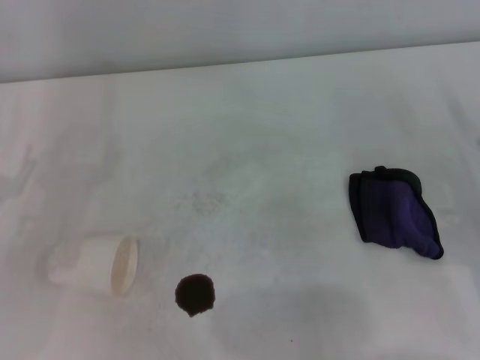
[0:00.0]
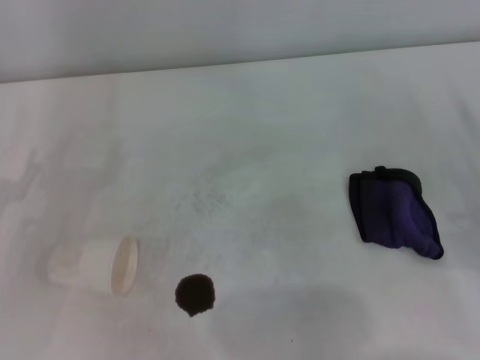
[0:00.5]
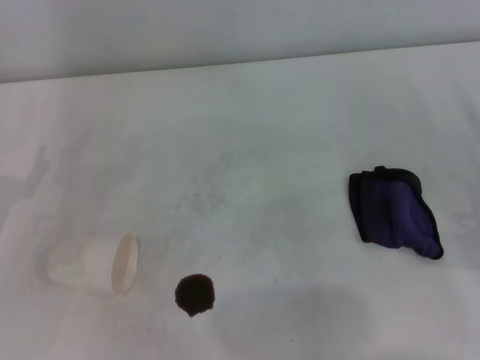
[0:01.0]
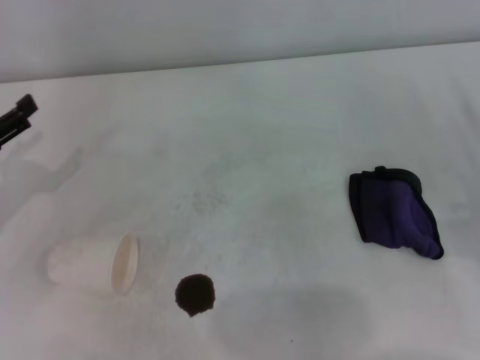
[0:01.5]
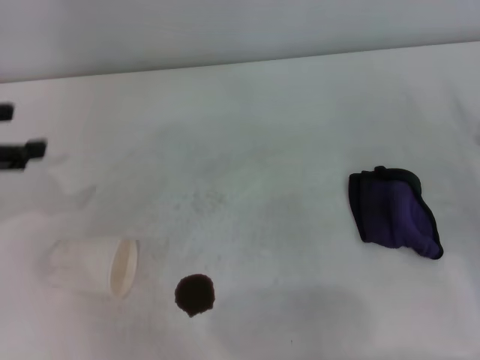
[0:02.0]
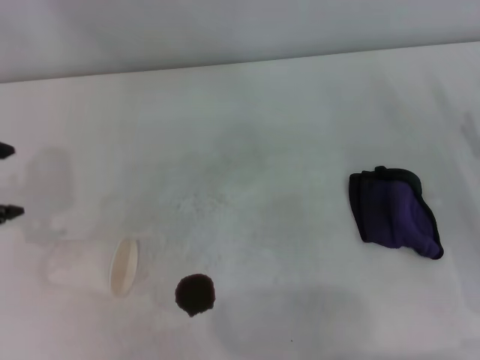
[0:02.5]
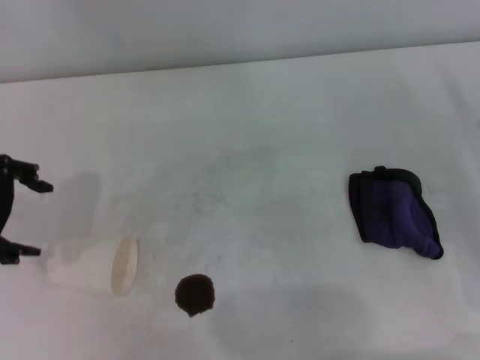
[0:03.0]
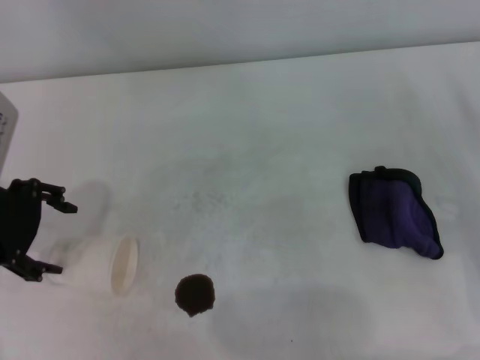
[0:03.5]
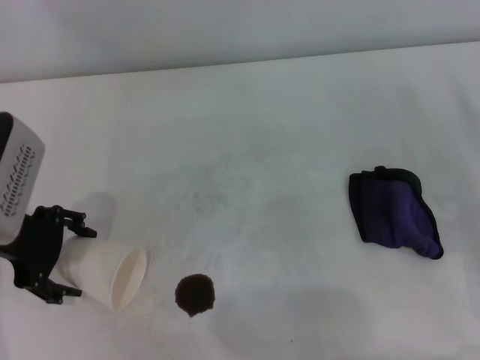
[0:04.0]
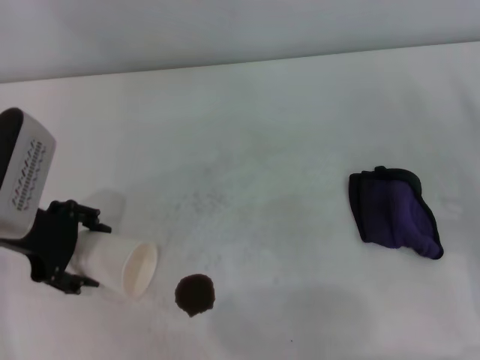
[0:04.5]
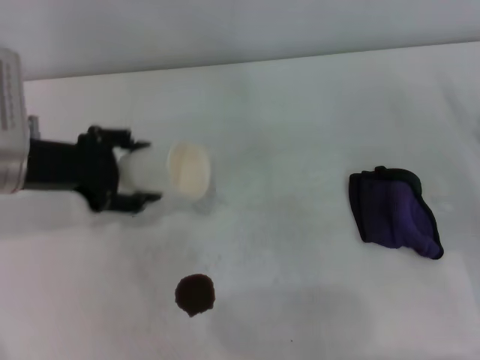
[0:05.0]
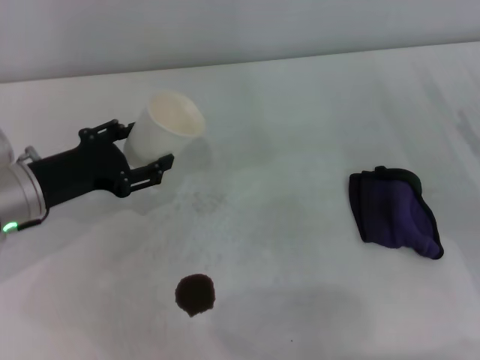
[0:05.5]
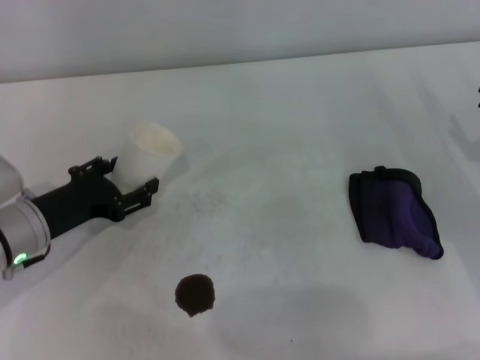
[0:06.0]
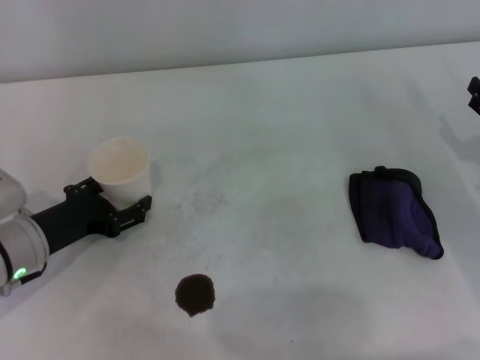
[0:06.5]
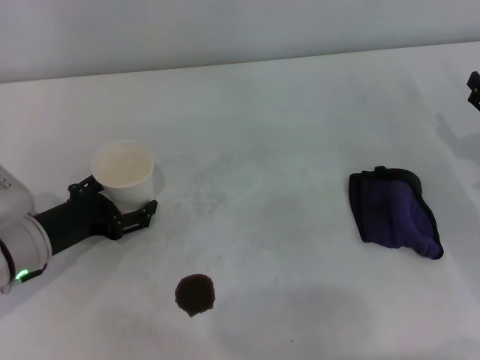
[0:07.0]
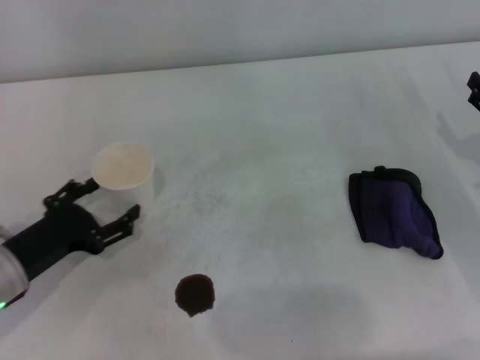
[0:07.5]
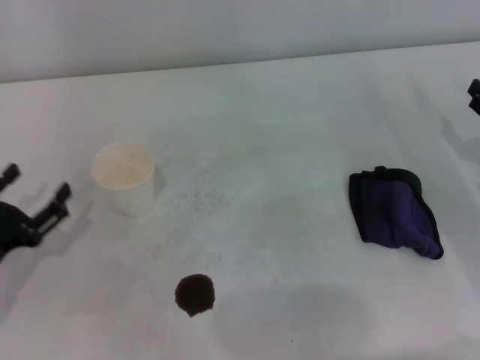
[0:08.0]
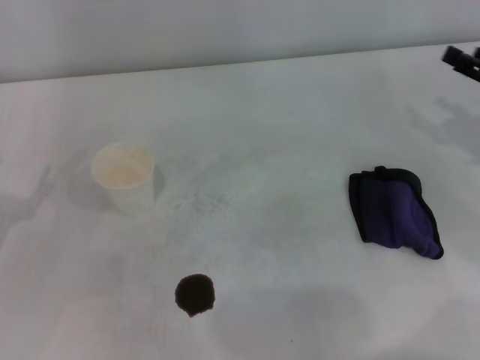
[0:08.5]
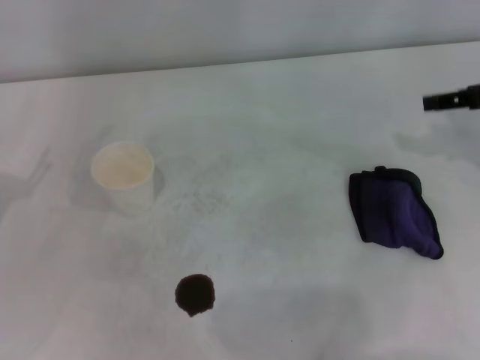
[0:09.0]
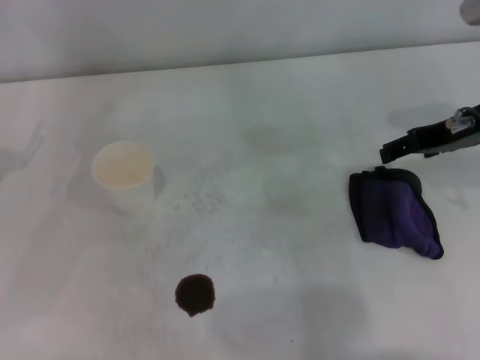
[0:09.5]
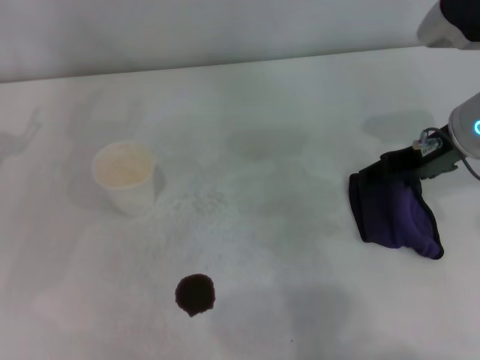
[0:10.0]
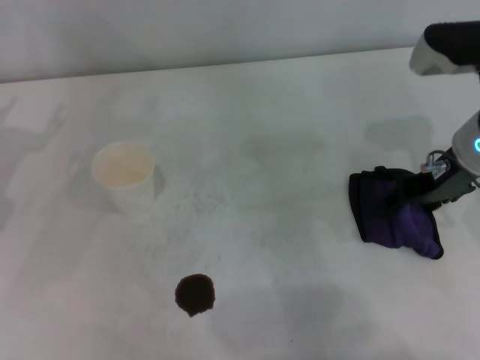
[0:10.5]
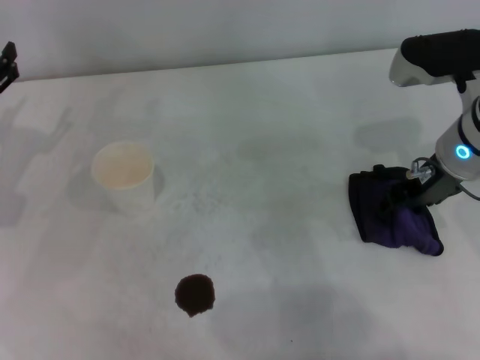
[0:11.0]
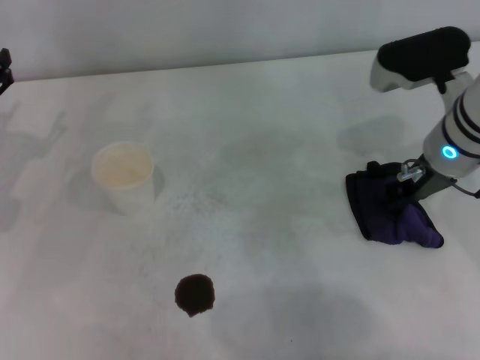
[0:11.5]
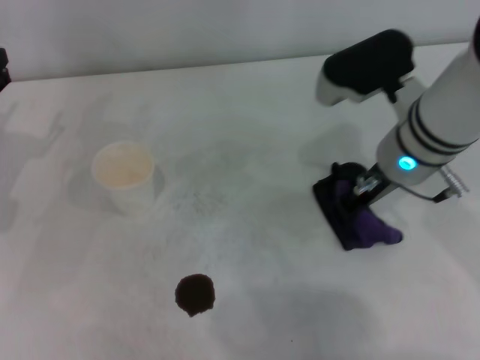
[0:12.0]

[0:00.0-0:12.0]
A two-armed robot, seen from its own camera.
Step, 0:00.0 to 0:04.0: Grasp the paper cup with the left gripper.
Step, 0:04.5 to 0:07.0: Stand the paper cup upright with the left gripper.
Step, 0:07.5 to 0:11.5: Grasp the rag with the right gripper.
0:00.0 to 0:02.0: The left gripper shifts roughly 15 cm upward.
0:02.0 to 0:04.0: The left gripper moves to the right and downward, roughly 10 cm.
0:04.0 to 0:06.0: The left gripper shifts about 10 cm downward.
0:06.0 to 0:08.0: The left gripper is displaced backward and to the left by approximately 10 cm.
0:08.0 to 0:10.0: The right gripper travels to the left, upward and forward by approximately 20 cm, while the left gripper travels forward and upward by roughly 10 cm.
0:10.0 to 0:12.0: The right gripper is displaced to the left by some 5 cm, and closes up.

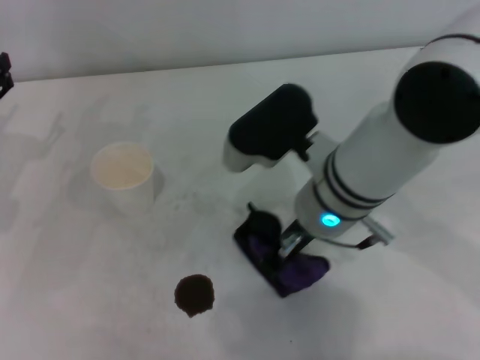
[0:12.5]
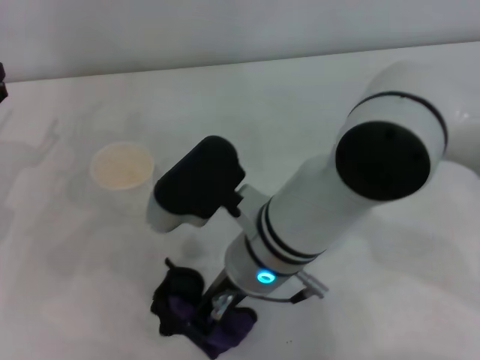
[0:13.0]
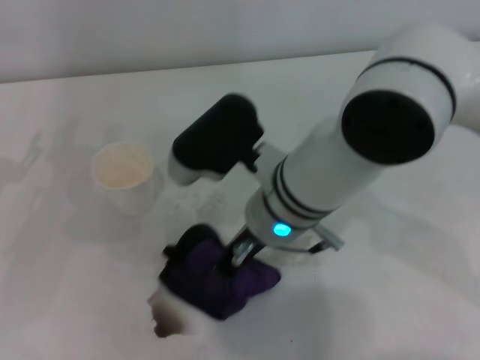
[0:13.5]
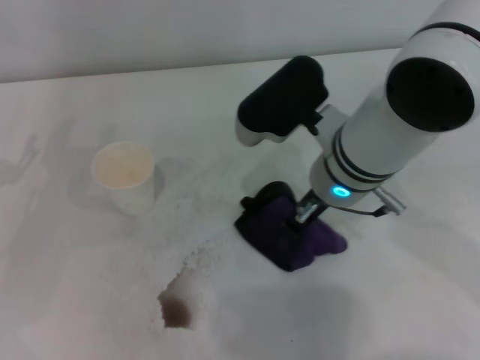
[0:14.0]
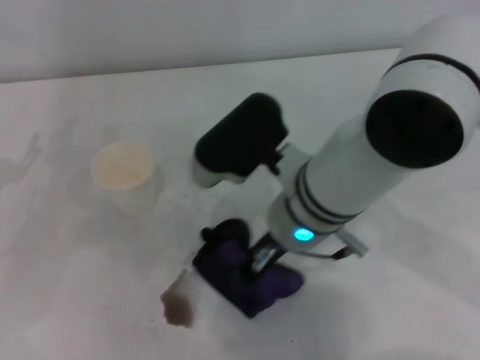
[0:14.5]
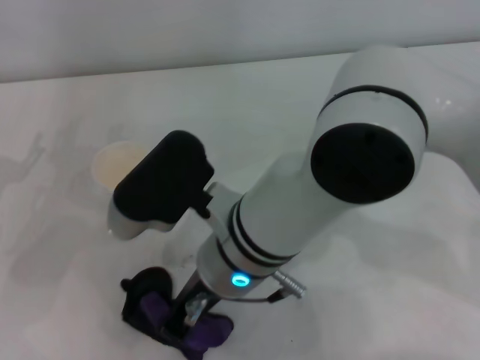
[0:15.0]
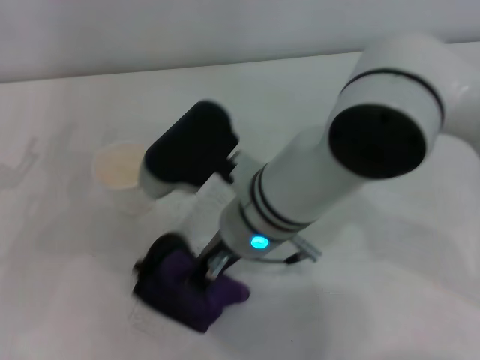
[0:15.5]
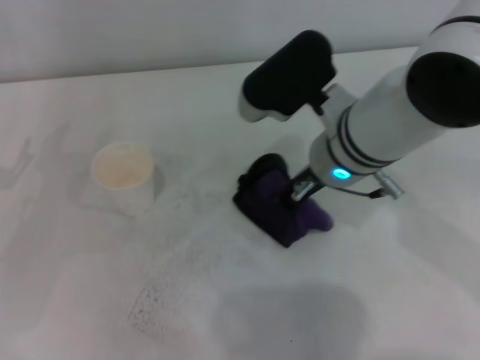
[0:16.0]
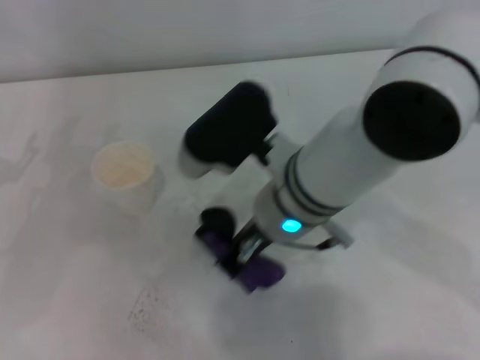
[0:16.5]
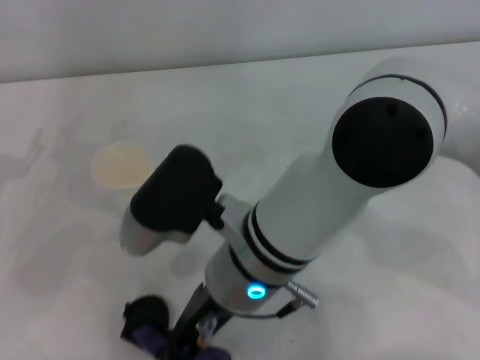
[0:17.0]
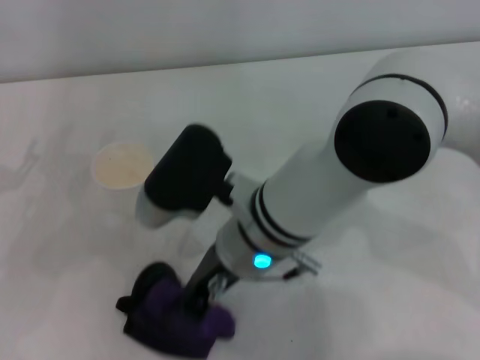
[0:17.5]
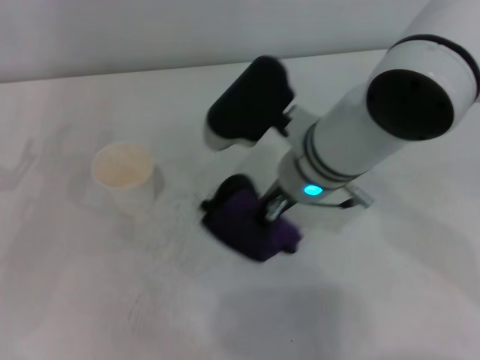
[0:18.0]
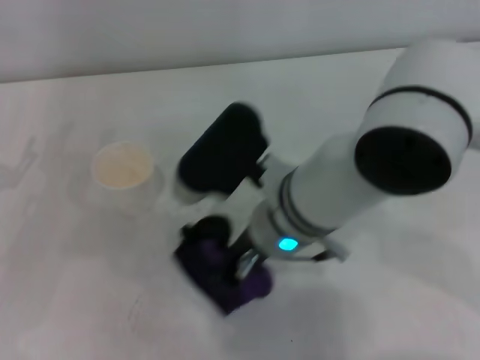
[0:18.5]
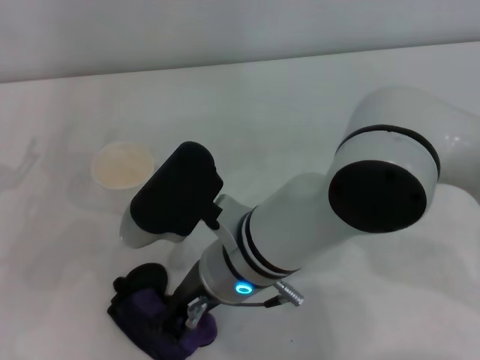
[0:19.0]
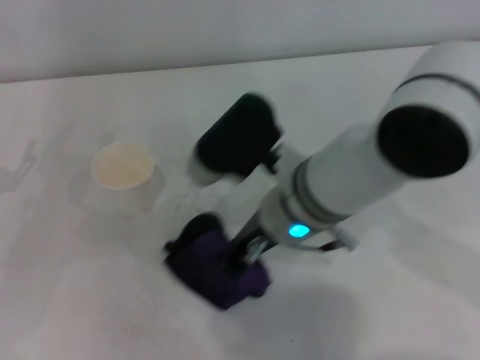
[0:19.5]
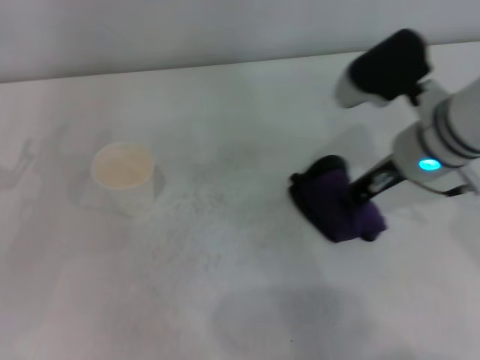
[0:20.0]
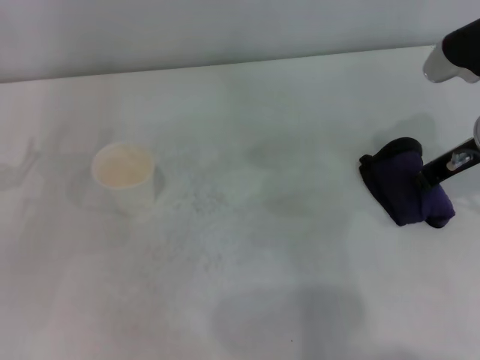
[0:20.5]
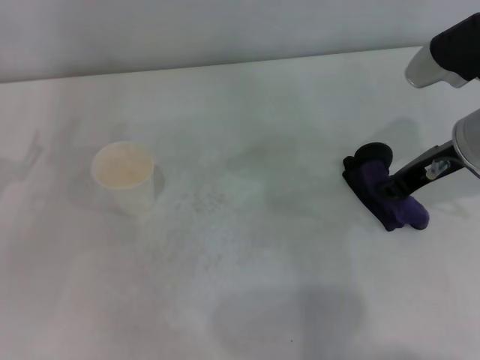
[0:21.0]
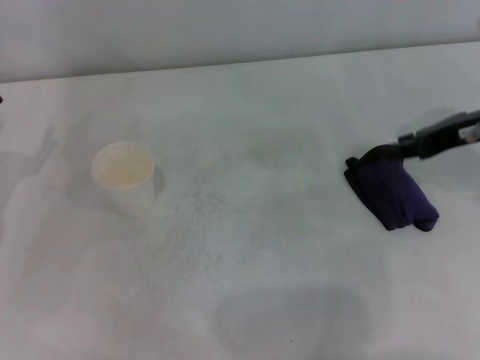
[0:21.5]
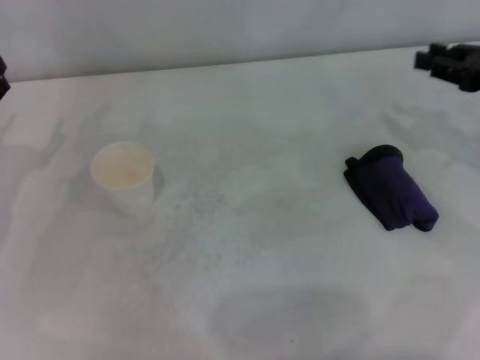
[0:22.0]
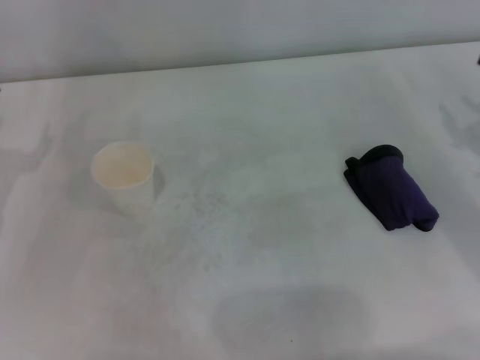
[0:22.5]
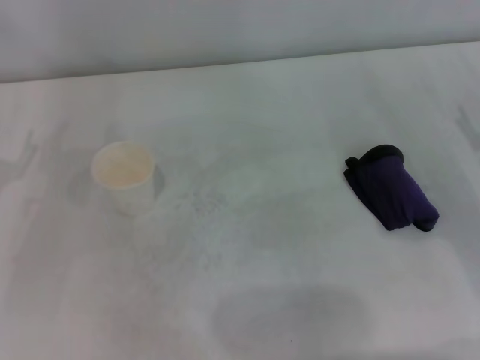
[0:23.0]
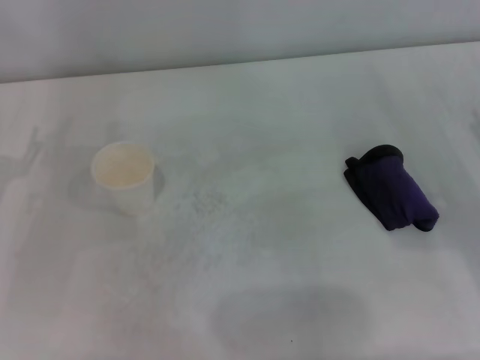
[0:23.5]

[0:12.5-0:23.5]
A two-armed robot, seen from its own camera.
Step, 0:12.5 to 0:20.0: Wipe the stains off the table with the right gripper.
Step, 0:20.5 to 0:21.0: Place the rag on the table with the right gripper.
0:14.5 to 0:16.0: The right gripper shifts by about 5 cm.
0:16.0 to 0:18.0: The right gripper goes to the left and returns, approximately 10 cm each way.
0:18.0 to 0:20.0: The right gripper shifts roughly 10 cm to the right.
0:20.0 to 0:21.5: The right gripper travels to the right by roughly 10 cm.
0:21.5 to 0:23.5: The right gripper shifts roughly 15 cm downward, to the right and backward, and opens.

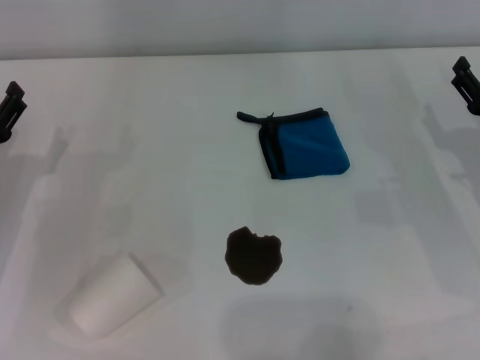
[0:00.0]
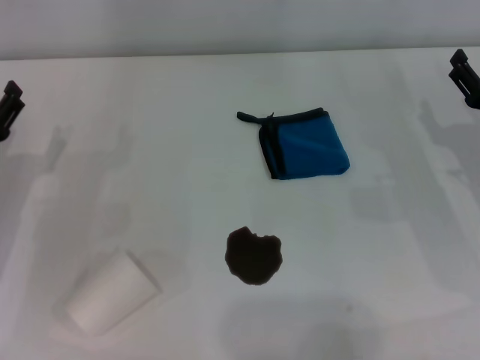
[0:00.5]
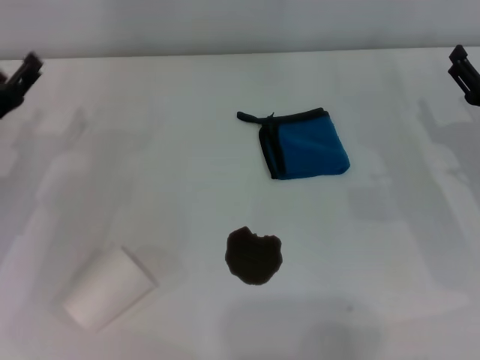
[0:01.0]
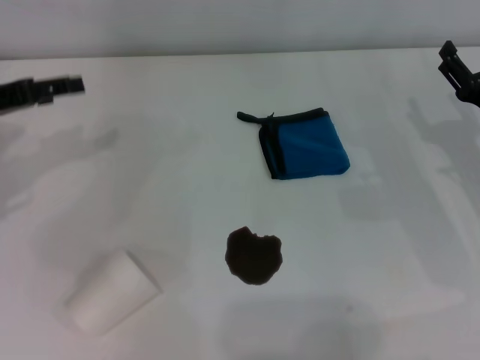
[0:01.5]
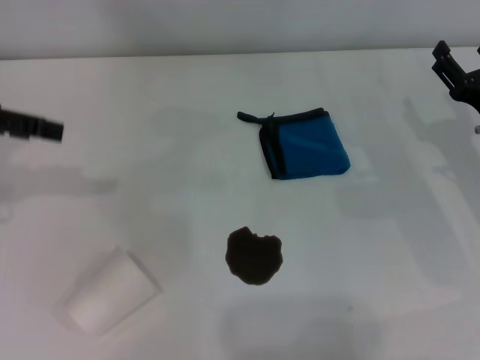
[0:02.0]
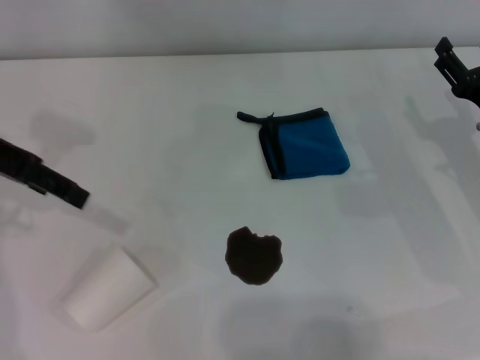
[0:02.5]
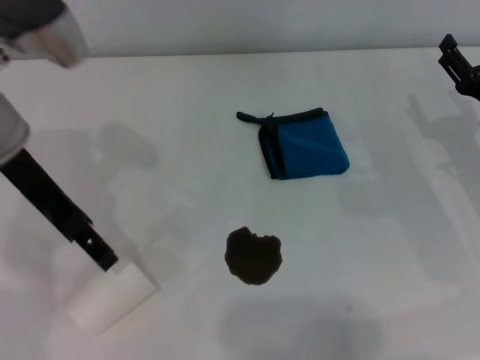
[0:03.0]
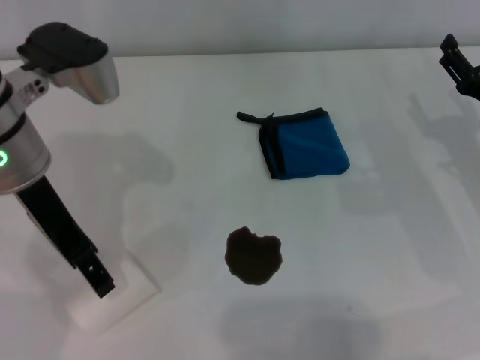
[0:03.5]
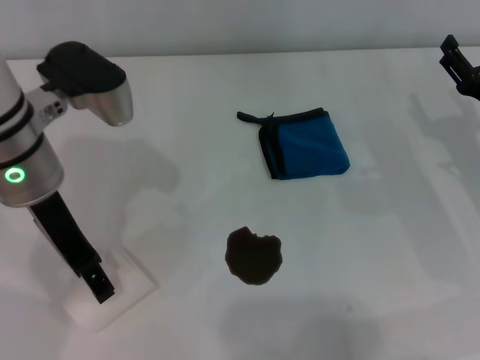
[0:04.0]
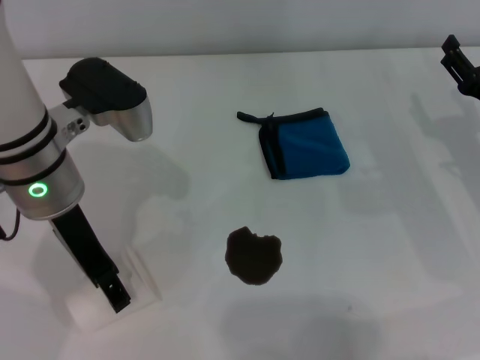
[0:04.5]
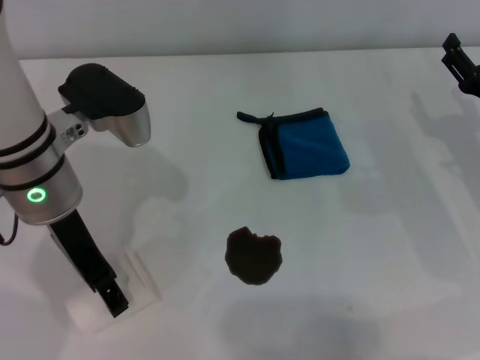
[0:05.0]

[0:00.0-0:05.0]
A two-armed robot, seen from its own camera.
0:00.0 to 0:02.5: The left gripper travels upward by roughly 20 cm.
0:02.5 to 0:05.0: The left gripper heads to the right and downward, covering roughly 15 cm.
